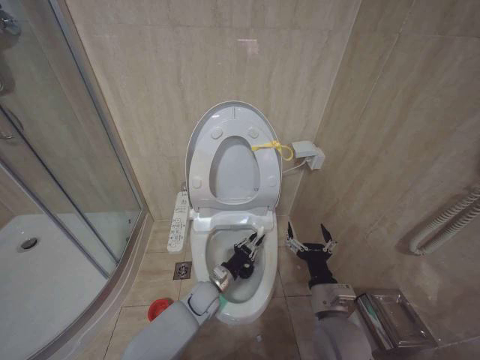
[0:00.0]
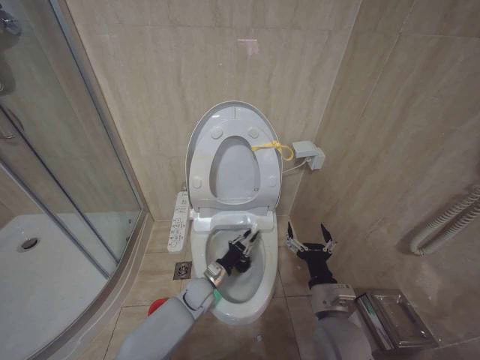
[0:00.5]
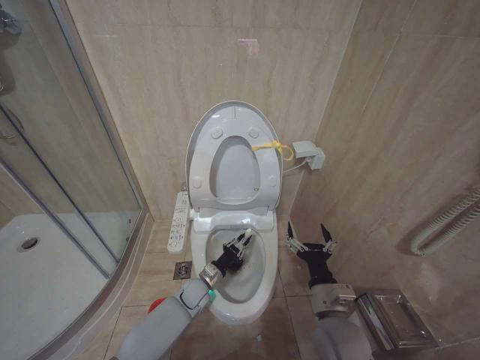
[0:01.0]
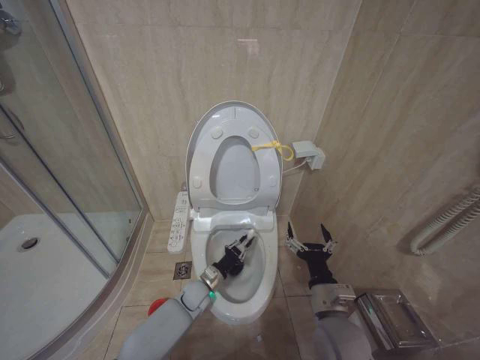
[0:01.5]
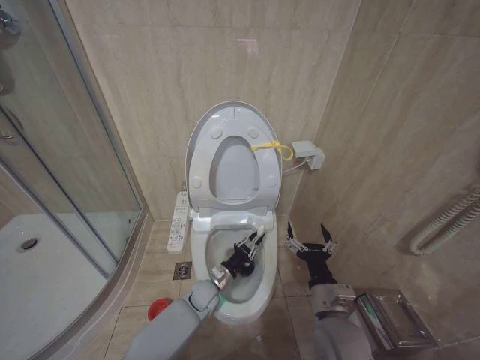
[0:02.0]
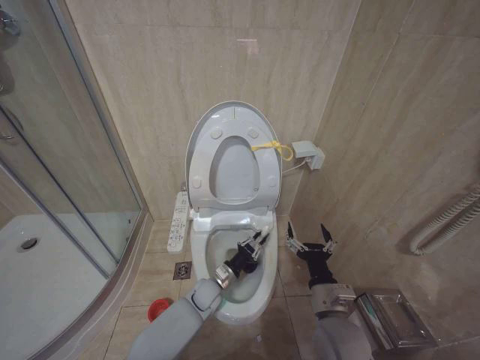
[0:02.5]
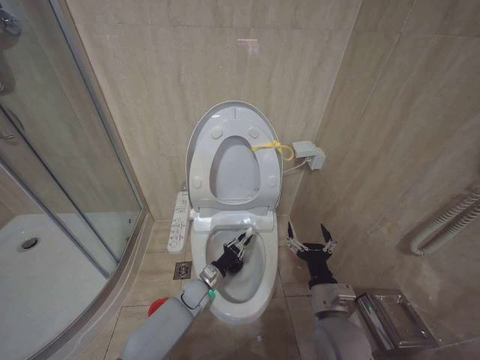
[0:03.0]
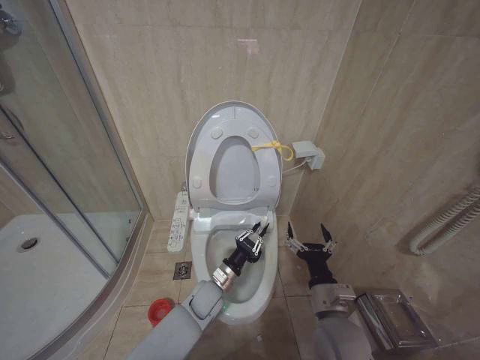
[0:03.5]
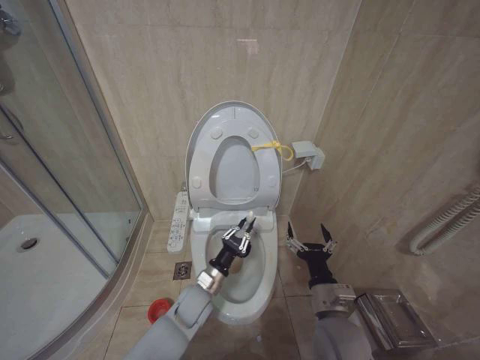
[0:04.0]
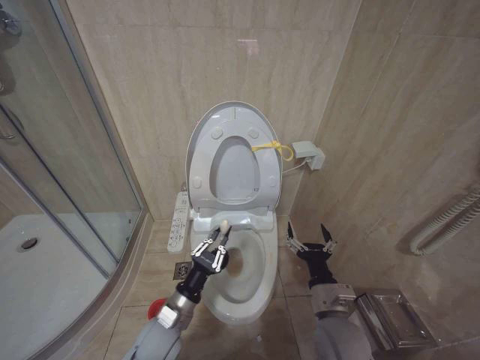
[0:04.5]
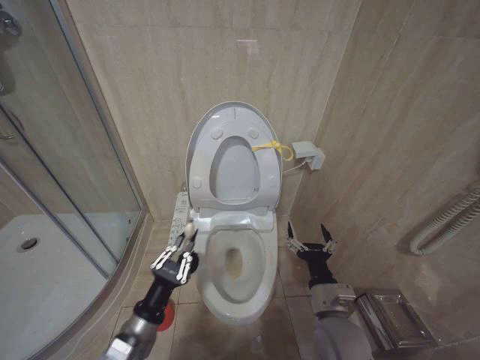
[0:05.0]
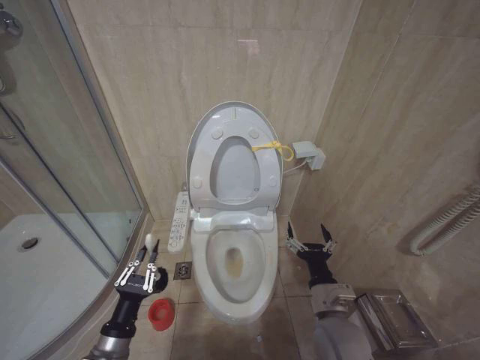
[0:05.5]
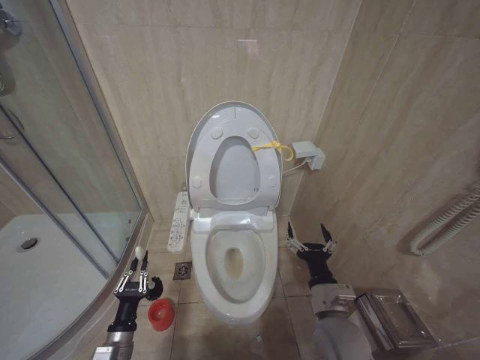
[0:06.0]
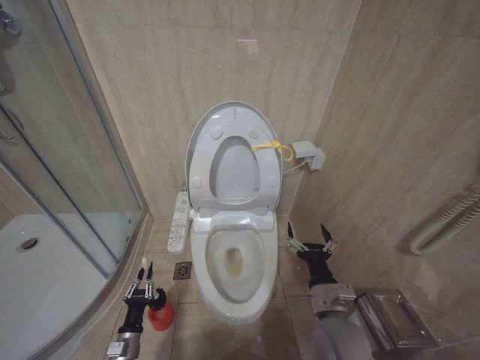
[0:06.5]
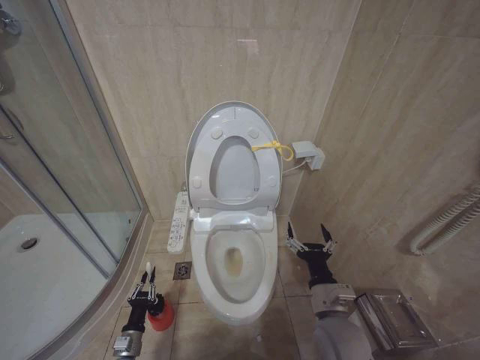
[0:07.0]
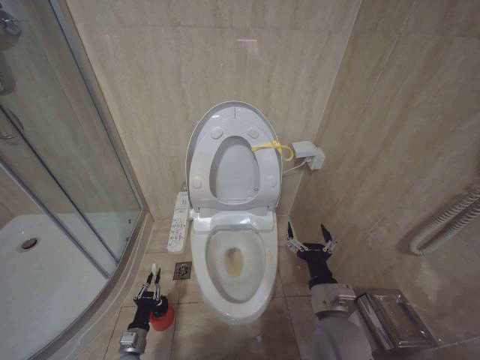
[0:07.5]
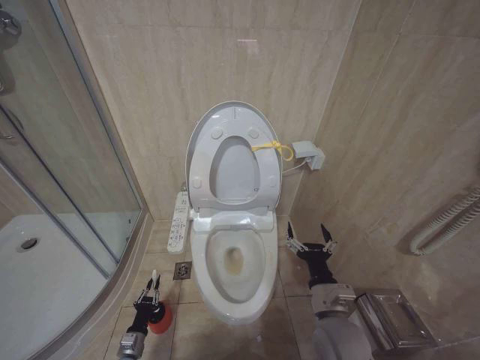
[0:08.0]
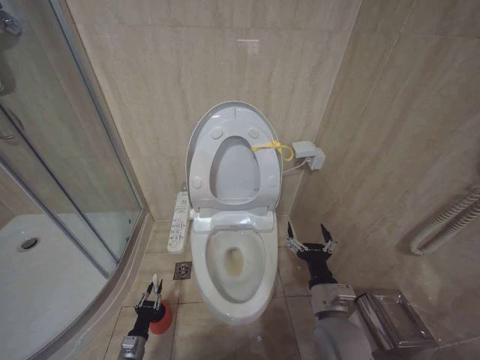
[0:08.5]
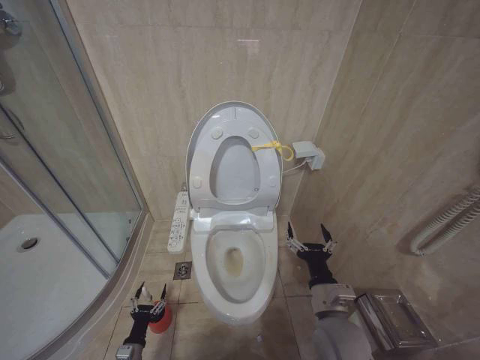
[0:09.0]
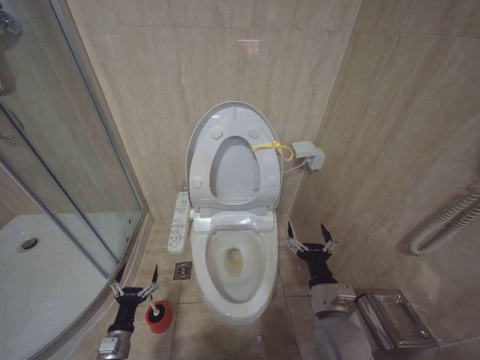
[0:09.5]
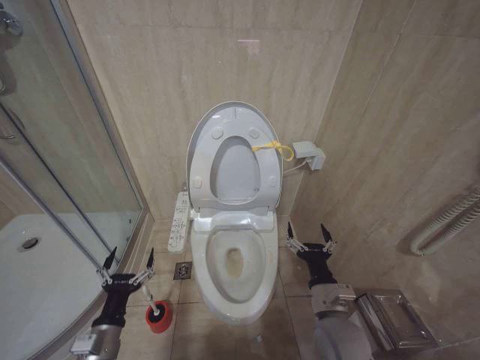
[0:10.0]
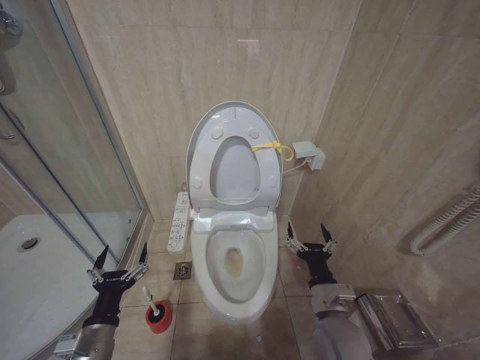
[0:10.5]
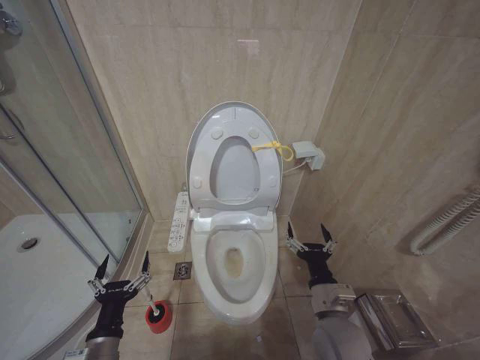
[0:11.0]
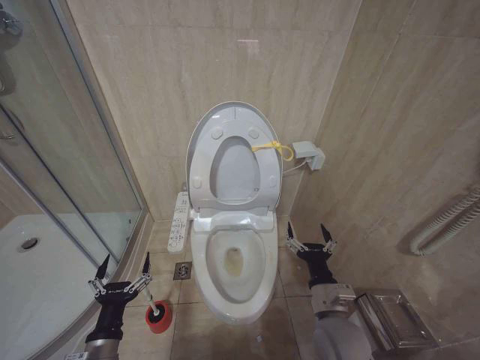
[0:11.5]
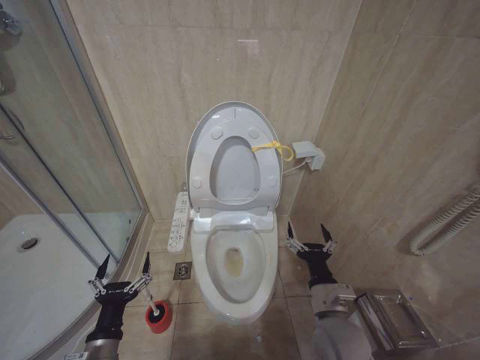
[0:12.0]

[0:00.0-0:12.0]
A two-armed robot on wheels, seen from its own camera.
Task of the whole recording: Open the toilet lid, clean the toilet bowl with a toilet brush, close the toilet lid, and flush.
2.0 to 4.0 s: The left gripper goes approximately 5 cm upward.
4.0 to 6.0 s: The left gripper goes some 25 cm to the left and backward.
6.0 to 8.0 s: The left gripper moves downward, approximately 20 cm.
8.0 to 10.0 s: The left gripper moves upward, approximately 25 cm, and opens its fingers.
10.0 to 12.0 s: The grippers make only small movements.

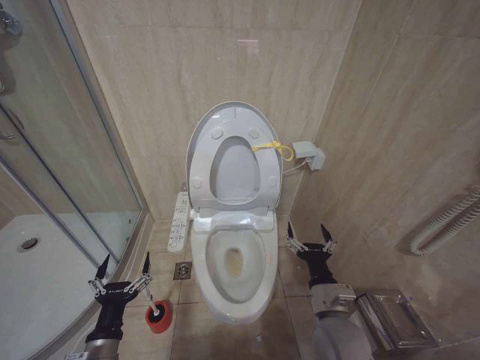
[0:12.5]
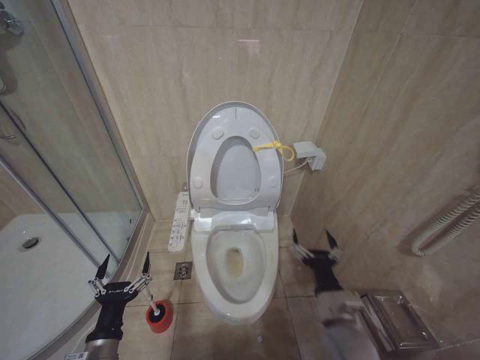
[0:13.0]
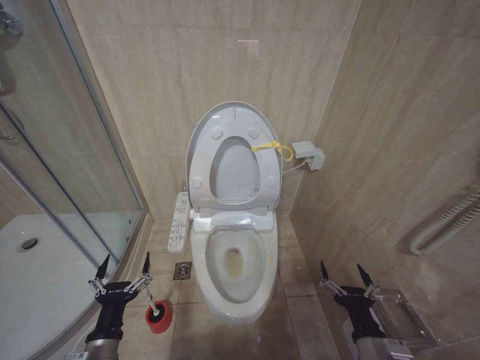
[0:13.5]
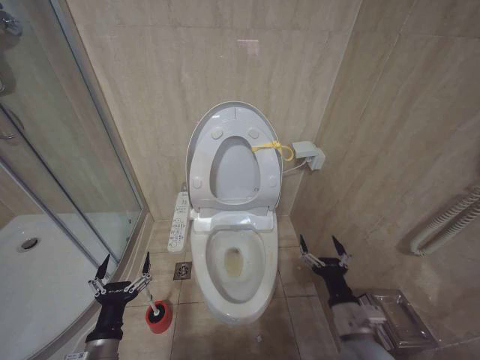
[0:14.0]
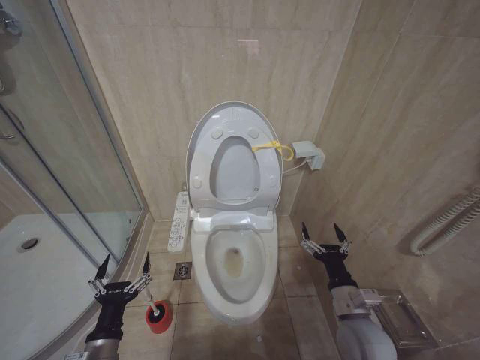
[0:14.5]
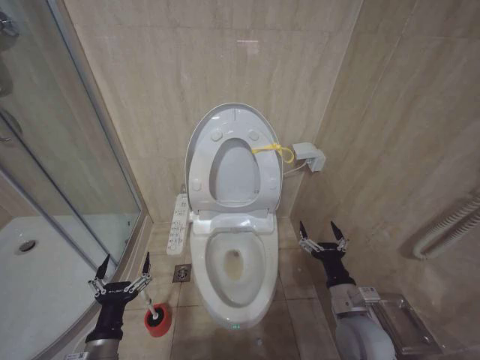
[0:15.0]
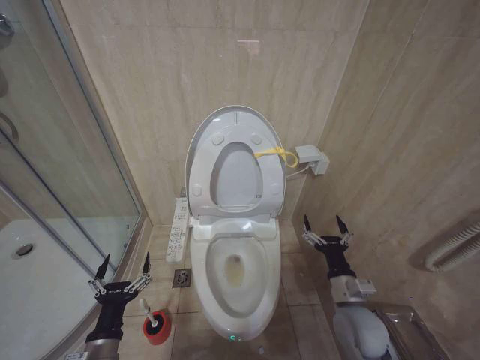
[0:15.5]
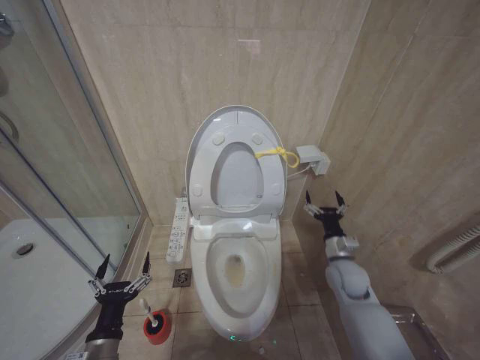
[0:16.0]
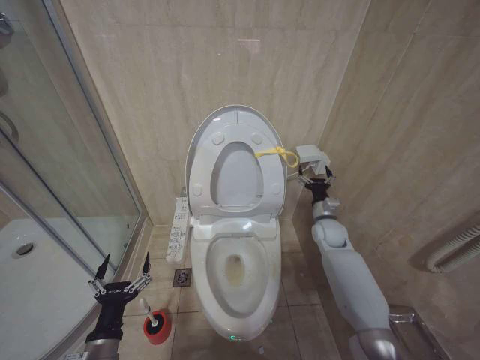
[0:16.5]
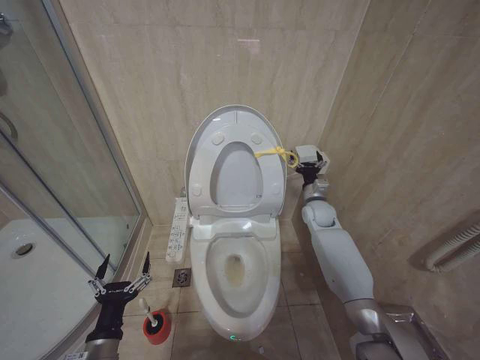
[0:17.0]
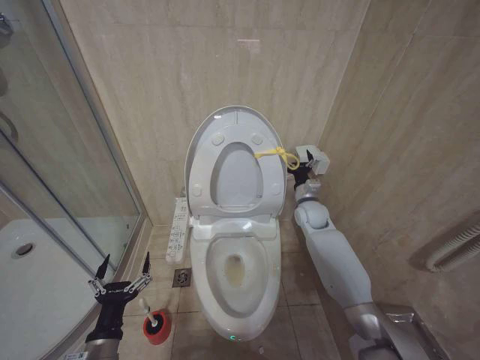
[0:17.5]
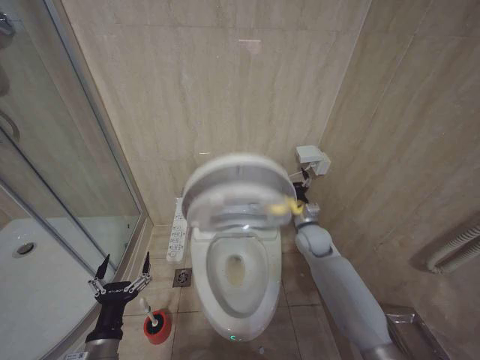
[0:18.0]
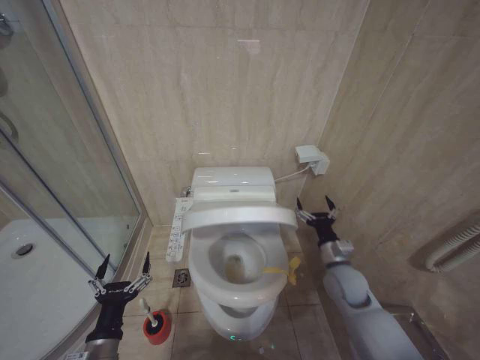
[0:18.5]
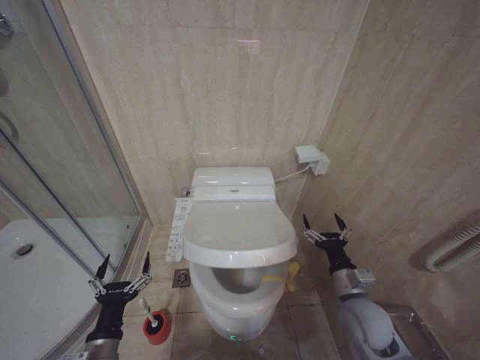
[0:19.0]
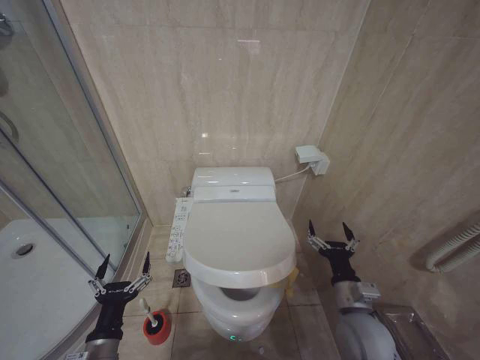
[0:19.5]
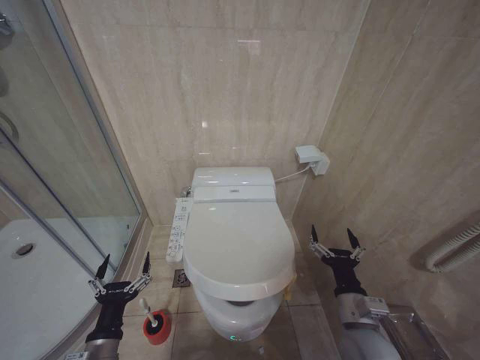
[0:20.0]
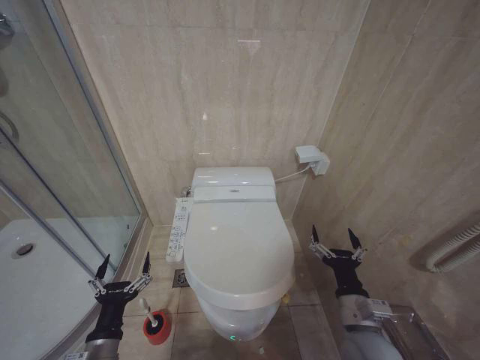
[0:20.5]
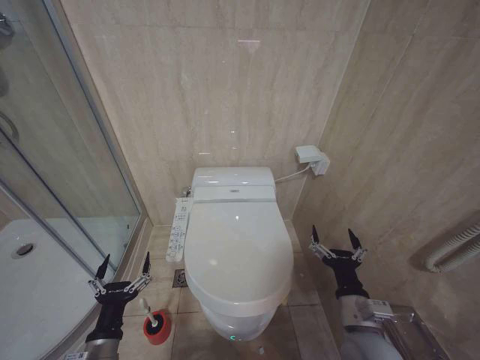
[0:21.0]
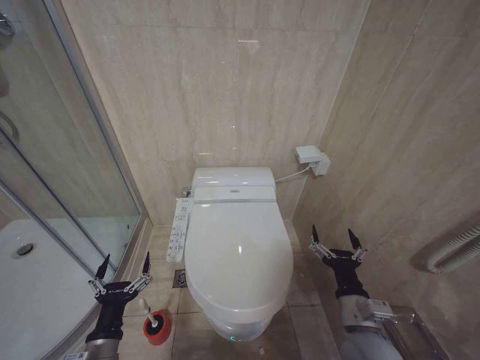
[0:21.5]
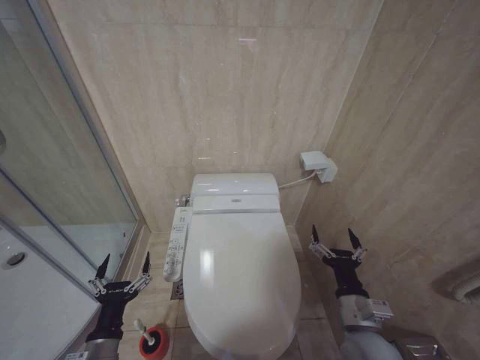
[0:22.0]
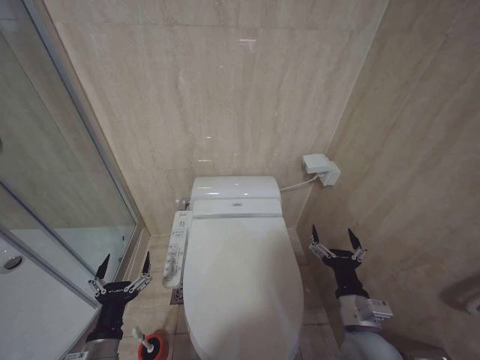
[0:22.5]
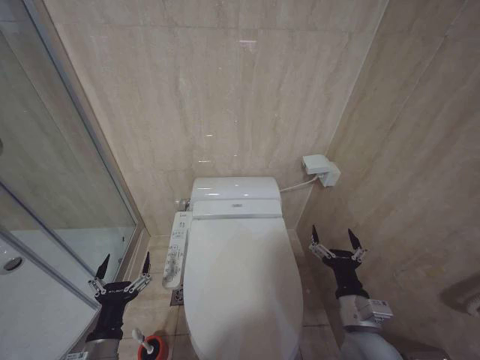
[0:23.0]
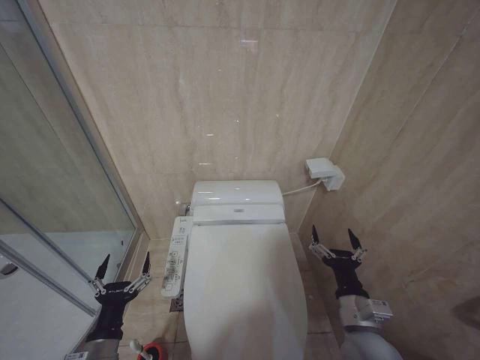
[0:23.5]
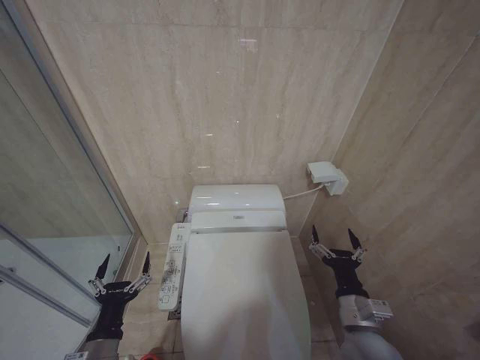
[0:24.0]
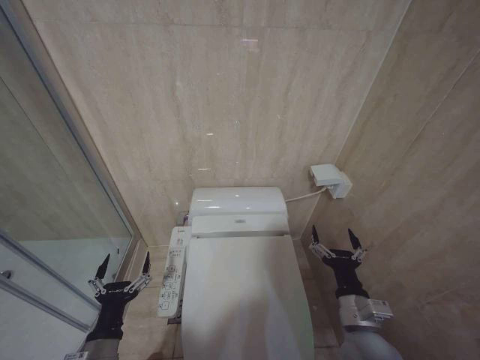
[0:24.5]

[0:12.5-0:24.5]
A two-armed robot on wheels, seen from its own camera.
Task of the whole recording: Open the toilet lid, clean the toilet bowl with a toilet brush, close the toilet lid, and flush.
12.5 to 14.5 s: The right gripper is displaced to the right by some 5 cm, and moves roughly 10 cm backward and comes back.
14.5 to 16.5 s: The right gripper goes roughly 25 cm forward.
16.5 to 18.5 s: The right gripper moves backward, roughly 10 cm.
18.5 to 20.5 s: The right gripper moves backward, approximately 15 cm.
20.5 to 24.5 s: Both grippers stay about where they are.

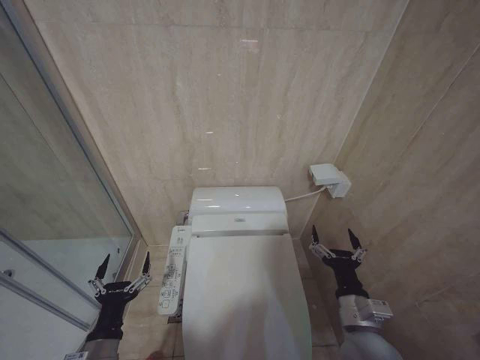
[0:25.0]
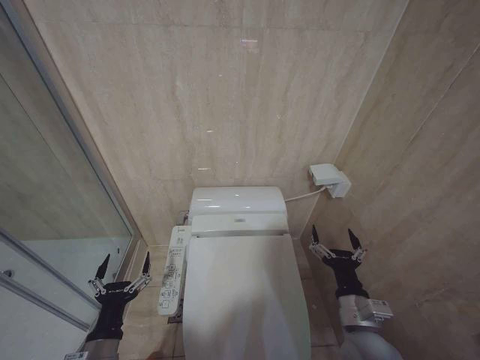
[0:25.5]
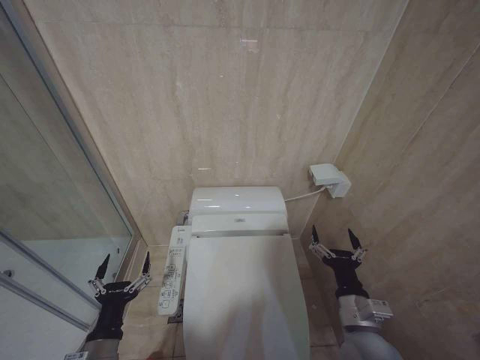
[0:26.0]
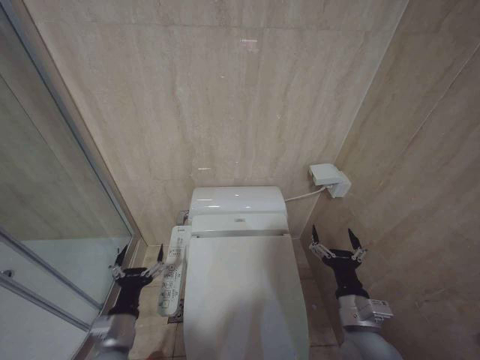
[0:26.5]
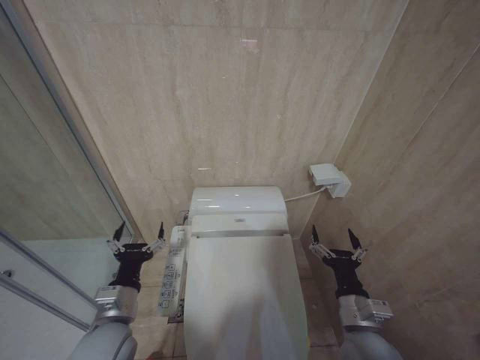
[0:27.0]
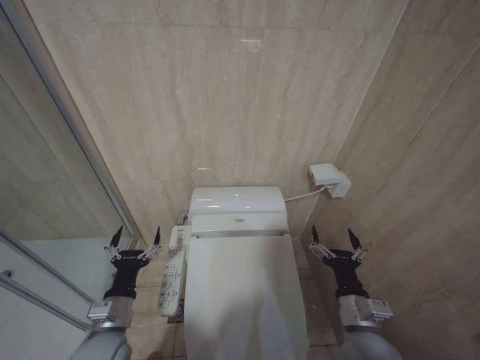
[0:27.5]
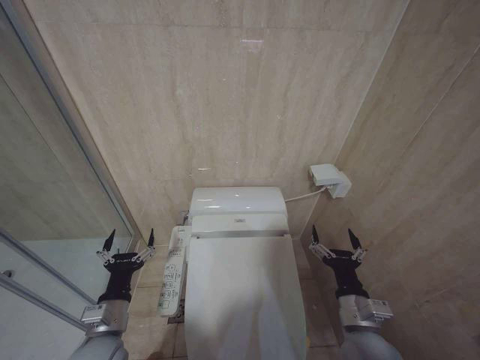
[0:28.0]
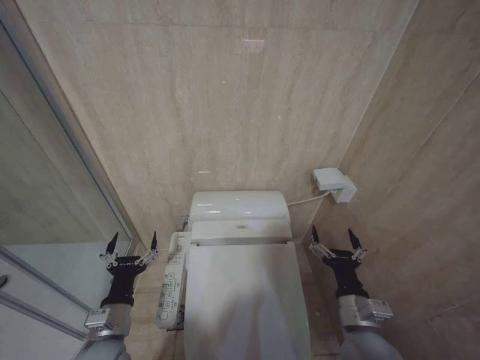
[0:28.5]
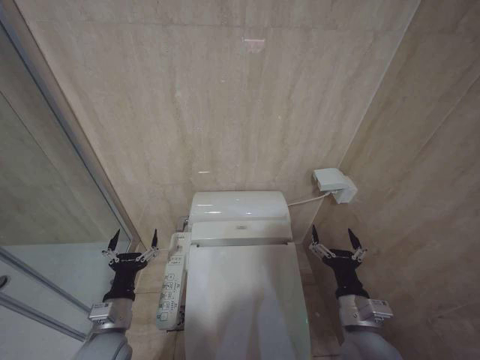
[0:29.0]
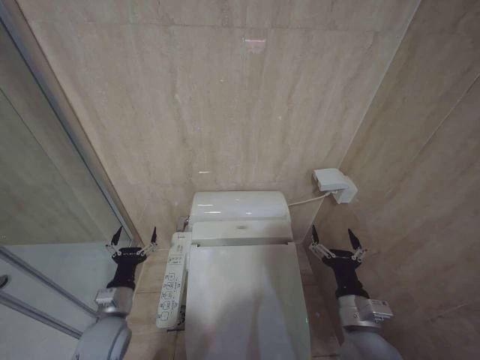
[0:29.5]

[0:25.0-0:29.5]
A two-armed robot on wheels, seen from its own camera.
Task of the whole recording: Open the toilet lid, clean the toilet bowl with a toilet brush, close the toilet lid, and flush.
25.0 to 27.0 s: The left gripper is displaced forward and upward by approximately 10 cm.
27.0 to 29.5 s: The left gripper shifts approximately 5 cm downward.
